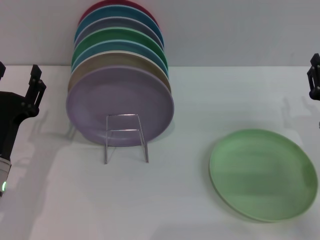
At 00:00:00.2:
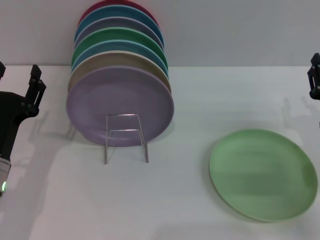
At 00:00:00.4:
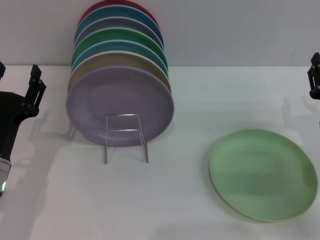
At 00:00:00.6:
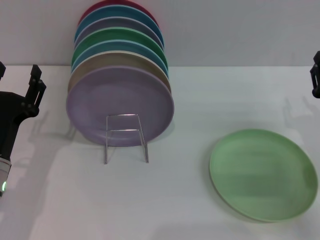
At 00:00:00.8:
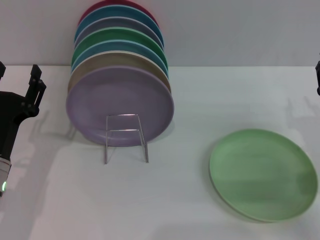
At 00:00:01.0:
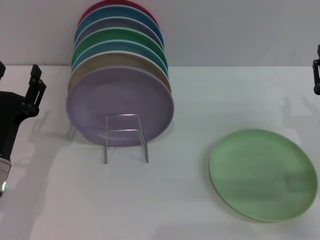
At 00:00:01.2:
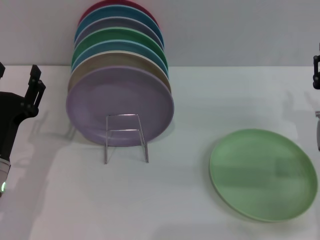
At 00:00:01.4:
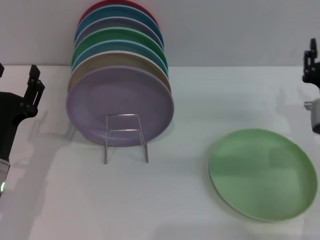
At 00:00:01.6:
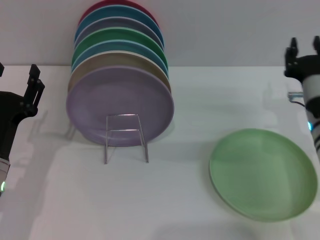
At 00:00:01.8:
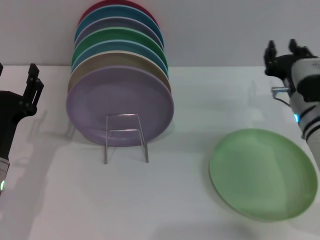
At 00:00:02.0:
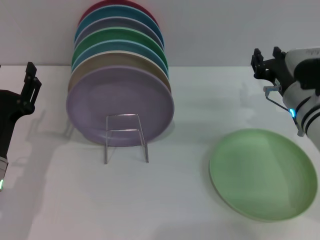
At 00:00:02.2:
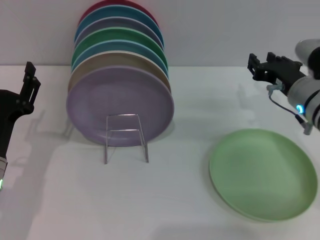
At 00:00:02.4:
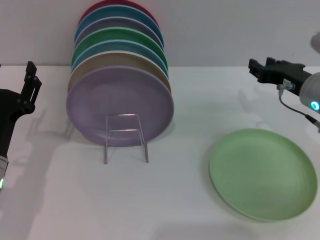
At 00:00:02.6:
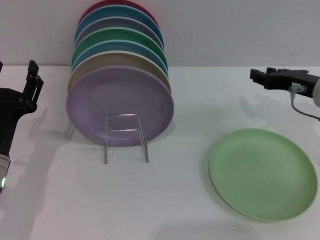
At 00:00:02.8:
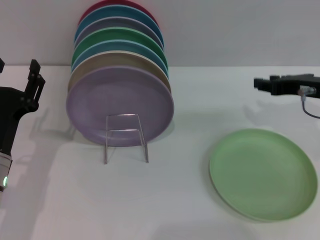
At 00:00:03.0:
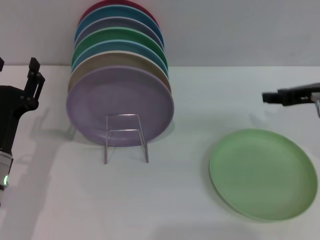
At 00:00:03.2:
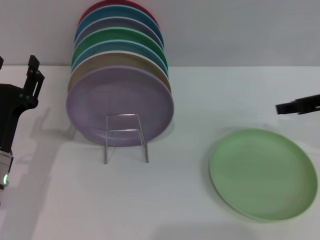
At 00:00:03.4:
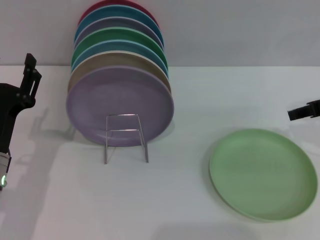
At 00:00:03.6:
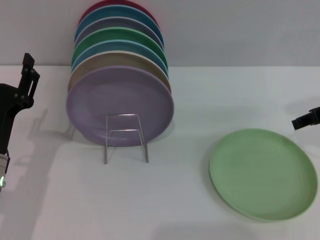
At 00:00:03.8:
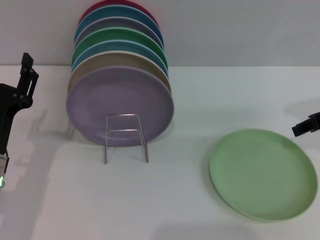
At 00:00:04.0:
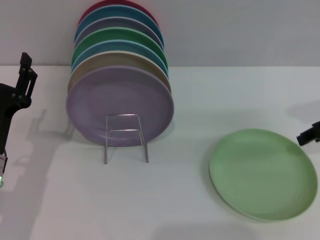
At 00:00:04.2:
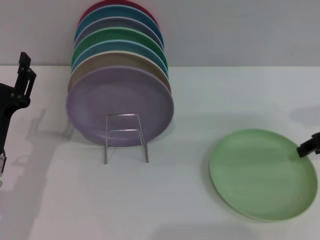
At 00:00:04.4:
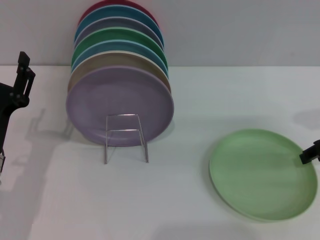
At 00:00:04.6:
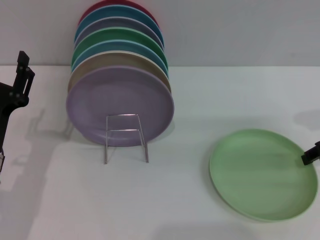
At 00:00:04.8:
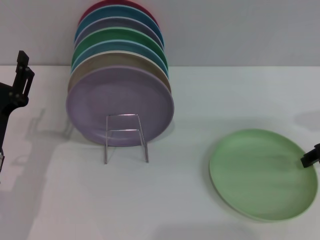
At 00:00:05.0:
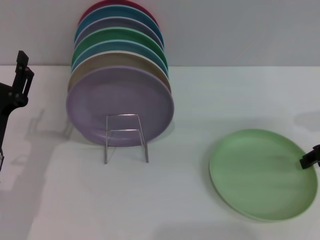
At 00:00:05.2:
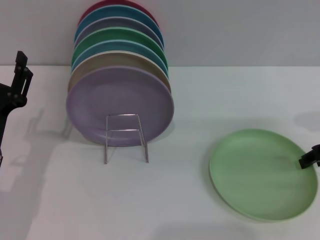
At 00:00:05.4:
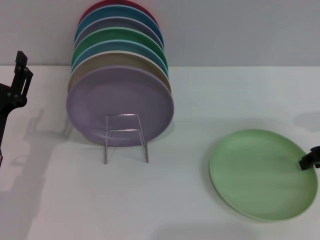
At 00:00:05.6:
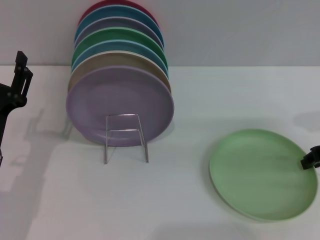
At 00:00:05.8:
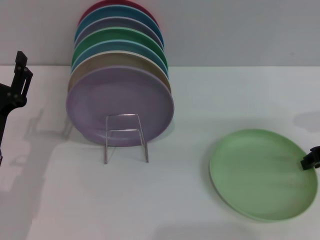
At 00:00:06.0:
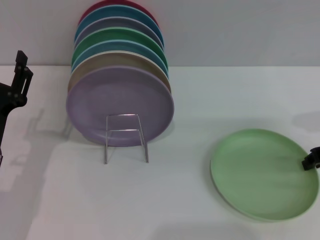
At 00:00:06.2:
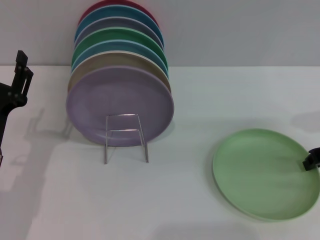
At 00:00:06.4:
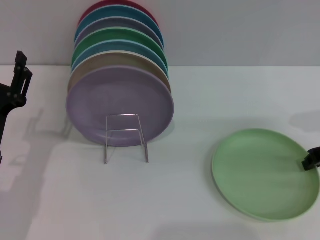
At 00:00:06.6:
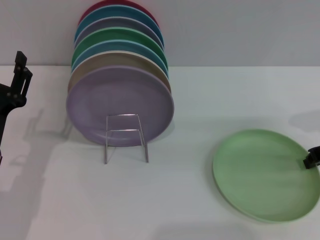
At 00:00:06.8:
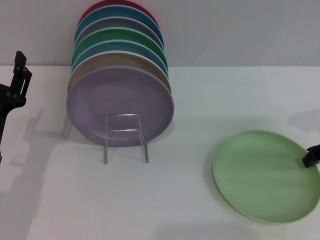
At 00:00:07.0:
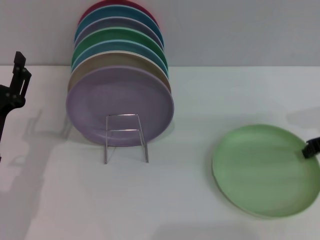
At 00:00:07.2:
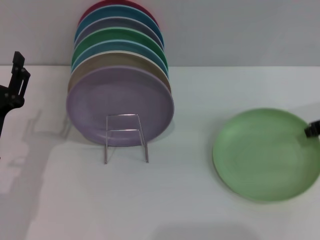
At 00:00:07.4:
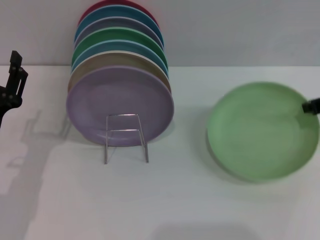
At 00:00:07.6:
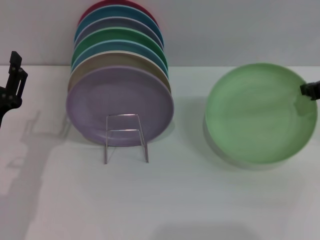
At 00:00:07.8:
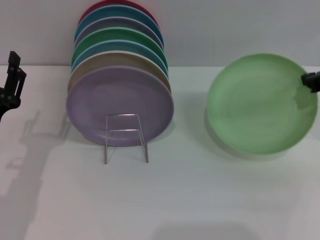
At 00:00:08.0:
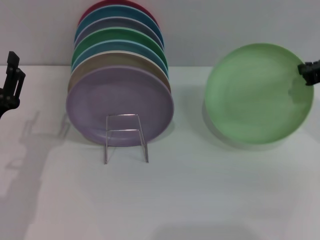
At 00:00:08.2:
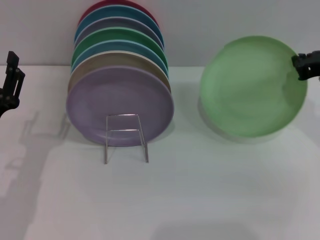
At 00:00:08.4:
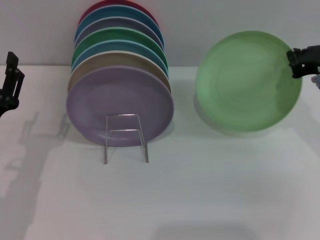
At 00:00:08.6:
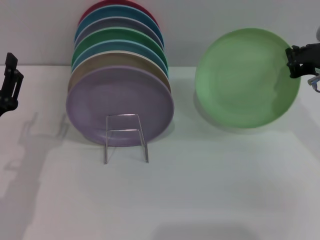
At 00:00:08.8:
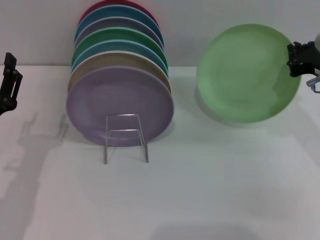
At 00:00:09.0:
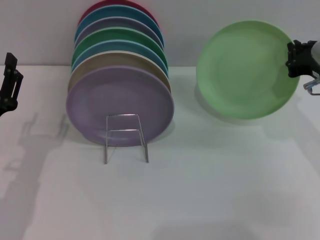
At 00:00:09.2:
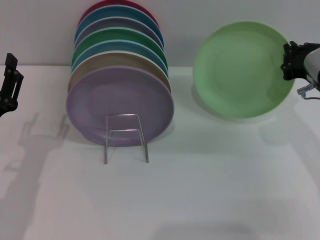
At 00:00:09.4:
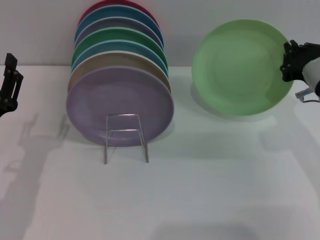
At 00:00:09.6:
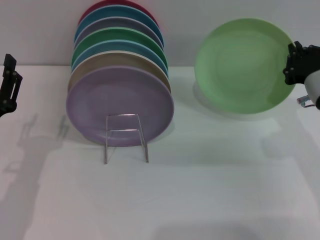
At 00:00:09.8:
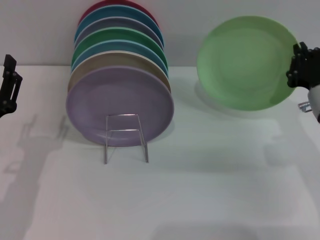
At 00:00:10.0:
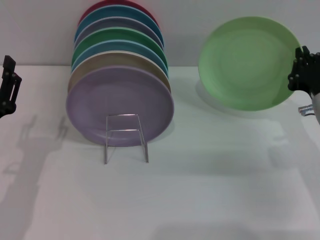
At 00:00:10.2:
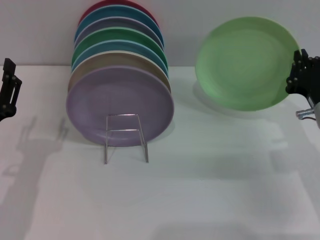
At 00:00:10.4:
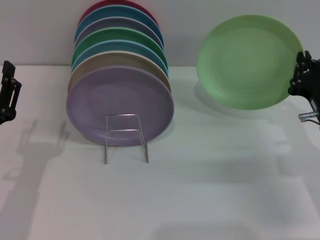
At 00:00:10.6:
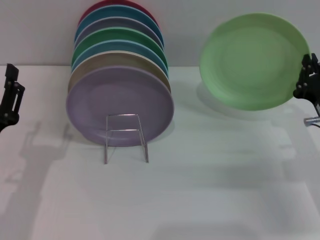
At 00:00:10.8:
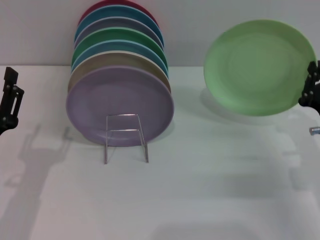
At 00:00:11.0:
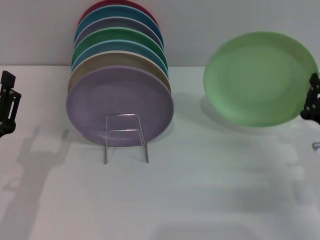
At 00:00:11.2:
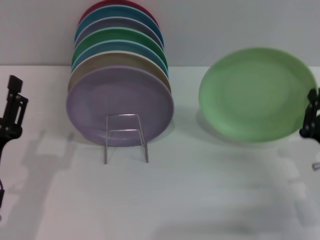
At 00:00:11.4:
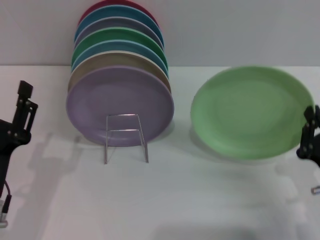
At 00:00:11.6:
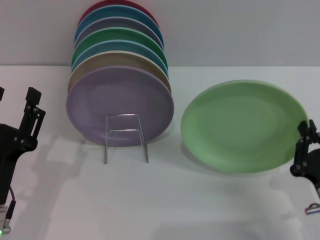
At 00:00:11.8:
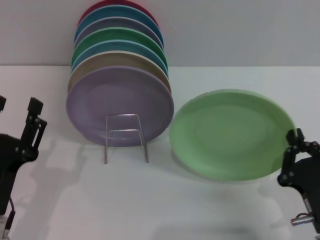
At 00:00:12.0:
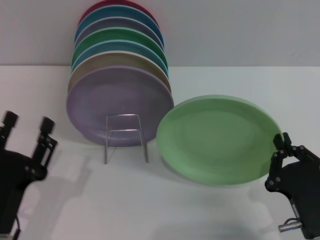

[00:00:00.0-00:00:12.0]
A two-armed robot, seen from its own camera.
Task of the whole recording: Grip the plate with one hand, pass it to the other, then set it on the shelf.
Step, 00:00:00.0 to 00:00:07.4: Pick up the plate with the right gripper.
00:00:00.0 to 00:00:01.6: The right gripper moves to the left, some 5 cm.
00:00:01.6 to 00:00:03.0: The right gripper shifts some 10 cm upward and to the right.
00:00:04.4 to 00:00:06.0: The right gripper closes.
00:00:06.0 to 00:00:07.6: The right gripper heads upward, covering approximately 5 cm, and closes its fingers.
00:00:07.6 to 00:00:09.0: The right gripper changes place by about 5 cm.
00:00:09.0 to 00:00:10.4: The right gripper travels downward by some 10 cm.
00:00:10.4 to 00:00:12.0: The right gripper travels backward and to the left by some 15 cm; the left gripper goes roughly 5 cm backward.

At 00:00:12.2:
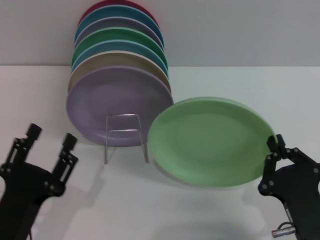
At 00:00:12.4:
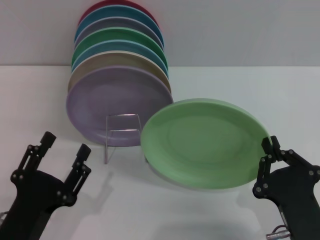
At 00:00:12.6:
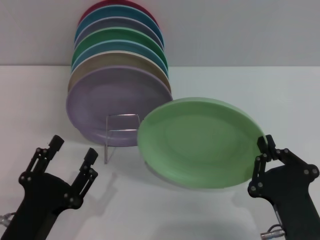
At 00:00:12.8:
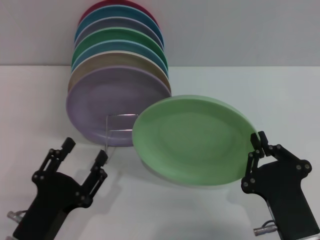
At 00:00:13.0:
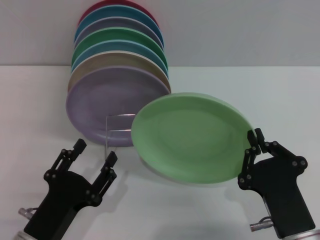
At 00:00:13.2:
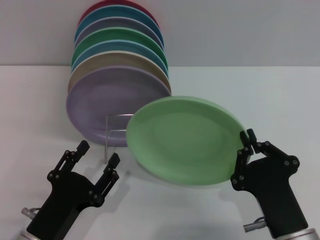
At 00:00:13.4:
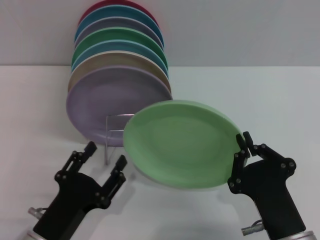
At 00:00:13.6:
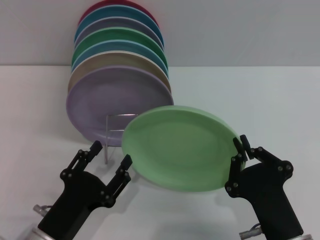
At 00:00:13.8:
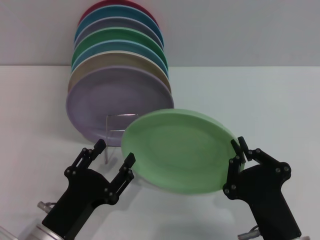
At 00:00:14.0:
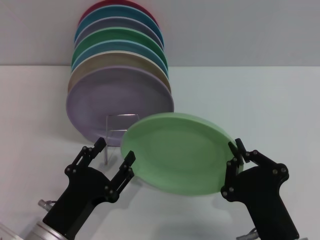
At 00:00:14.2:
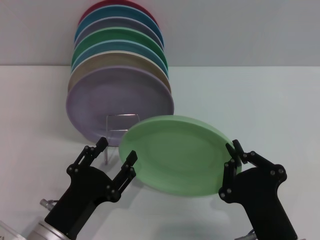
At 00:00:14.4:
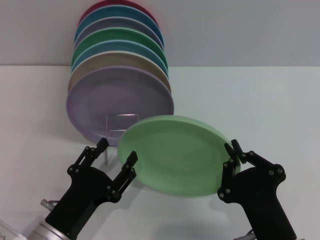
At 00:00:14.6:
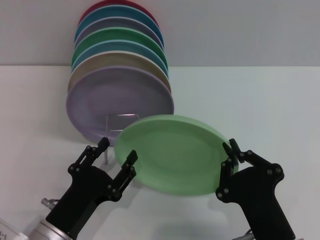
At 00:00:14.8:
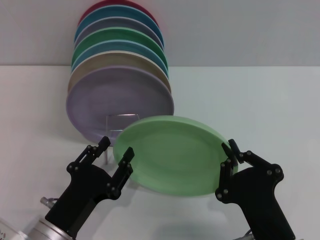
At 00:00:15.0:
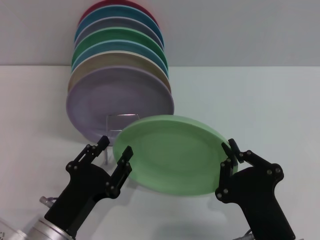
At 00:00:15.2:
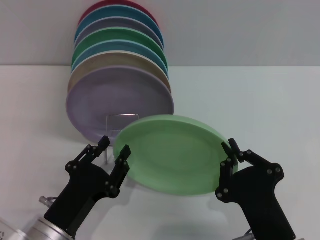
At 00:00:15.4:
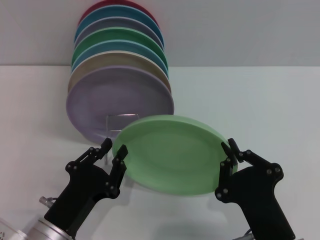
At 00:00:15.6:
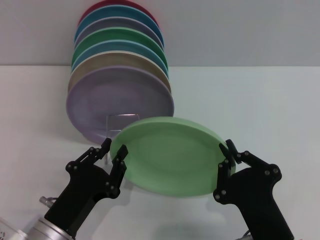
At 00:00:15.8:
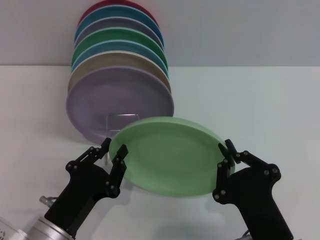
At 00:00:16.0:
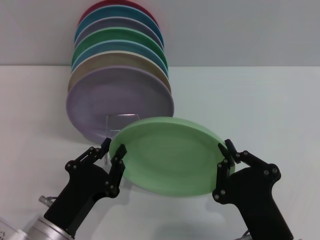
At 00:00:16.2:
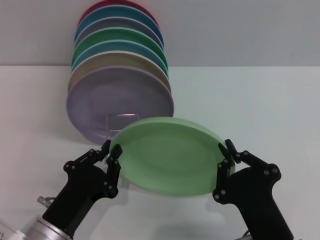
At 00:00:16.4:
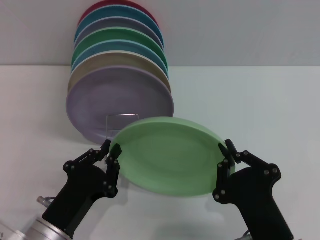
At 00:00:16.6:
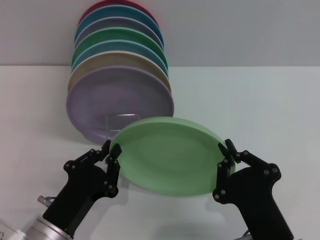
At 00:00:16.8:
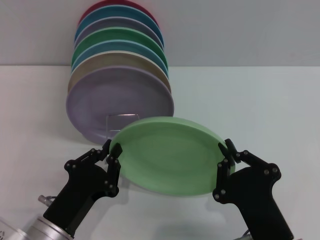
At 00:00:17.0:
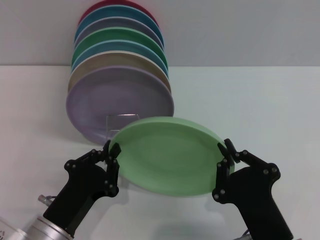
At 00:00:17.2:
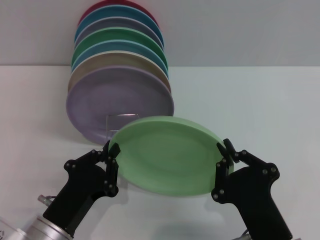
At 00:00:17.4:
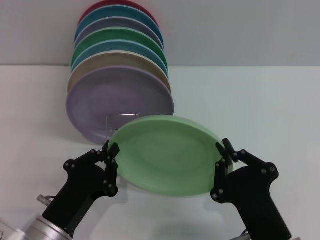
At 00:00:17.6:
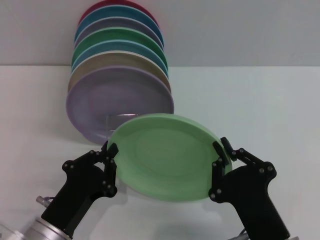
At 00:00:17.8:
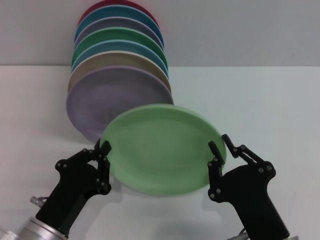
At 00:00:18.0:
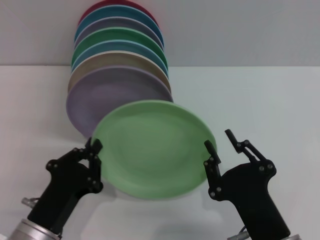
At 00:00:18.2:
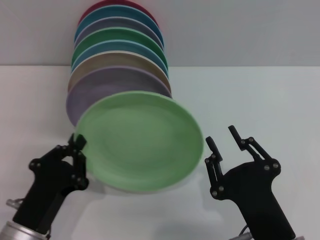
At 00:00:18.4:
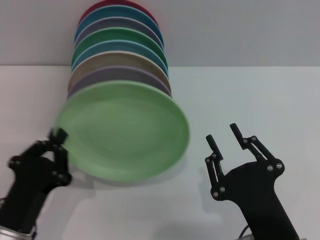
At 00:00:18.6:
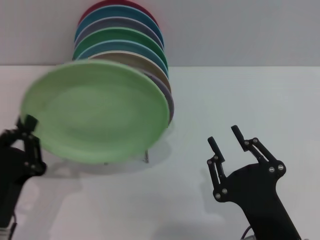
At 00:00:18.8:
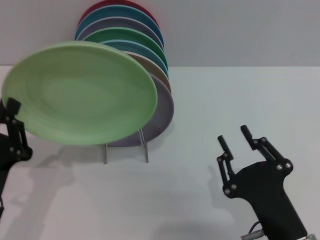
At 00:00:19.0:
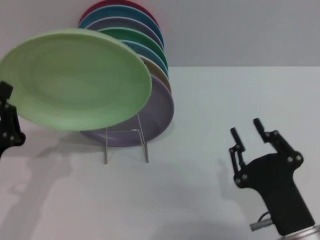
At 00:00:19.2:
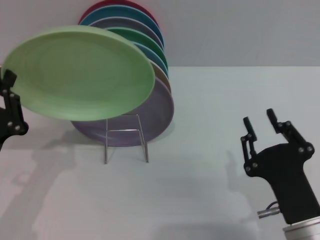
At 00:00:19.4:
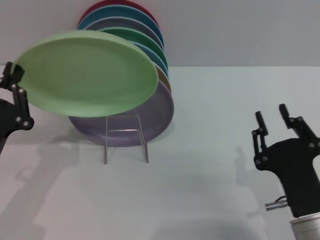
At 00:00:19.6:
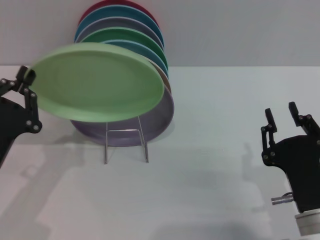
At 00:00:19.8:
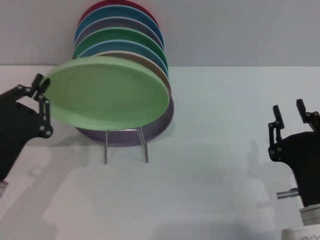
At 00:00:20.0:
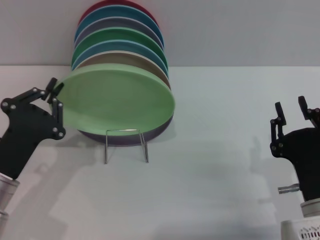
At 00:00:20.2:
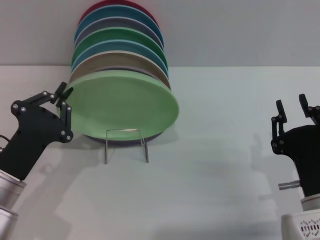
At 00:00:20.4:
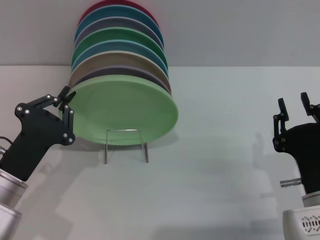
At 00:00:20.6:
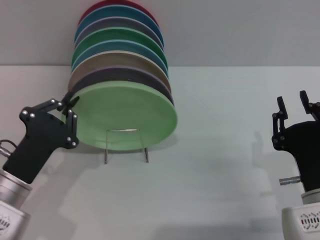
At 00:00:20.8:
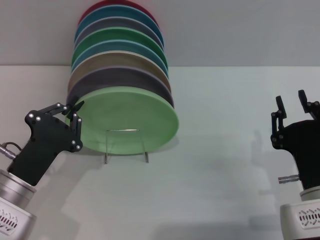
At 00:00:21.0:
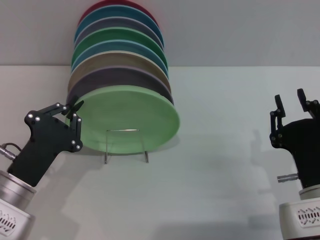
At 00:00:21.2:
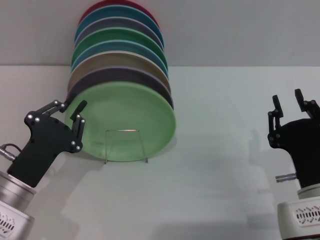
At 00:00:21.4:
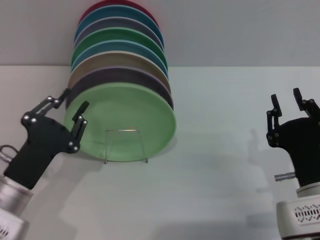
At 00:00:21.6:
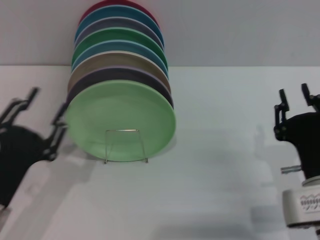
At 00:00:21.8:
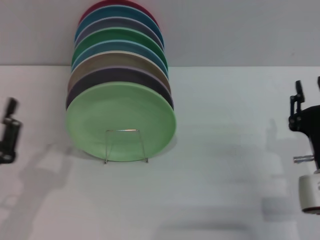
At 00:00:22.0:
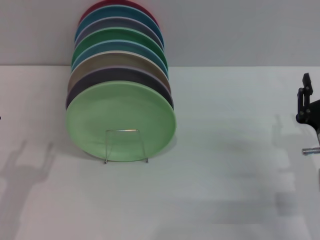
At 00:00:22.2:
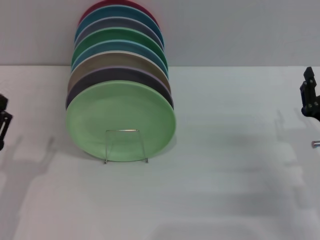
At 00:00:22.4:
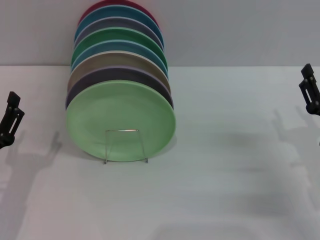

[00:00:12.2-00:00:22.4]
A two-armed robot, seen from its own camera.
Task of the whole recording: Grip the plate with one hand, pass it to the other, then set it on the shelf.
Step, 00:00:12.2 to 00:00:18.0: Pass the plate from the right gripper to the left gripper.
Step, 00:00:18.4 to 00:00:21.4: Place the plate on the shelf with the left gripper.
00:00:13.6 to 00:00:15.2: The grippers move only a little.
00:00:15.2 to 00:00:16.6: The left gripper closes up.
00:00:16.6 to 00:00:18.0: The grippers make only small movements.
00:00:18.0 to 00:00:19.4: The right gripper moves about 5 cm, and opens its fingers, while the left gripper travels to the left and upward by some 10 cm.
00:00:21.0 to 00:00:22.4: The right gripper shifts approximately 10 cm to the right and forward, while the left gripper opens its fingers.
